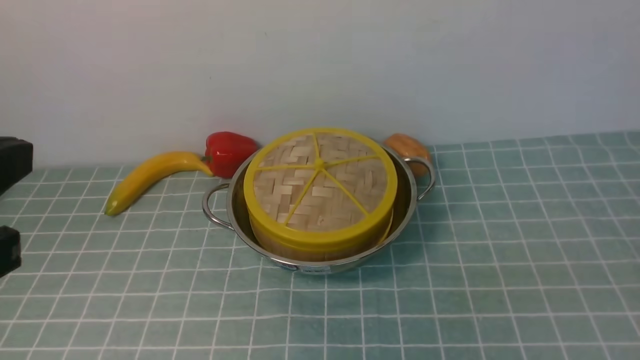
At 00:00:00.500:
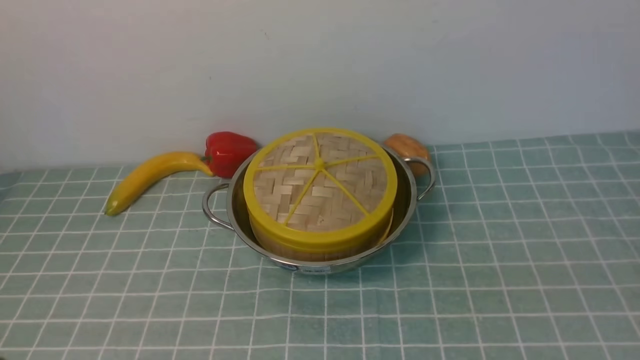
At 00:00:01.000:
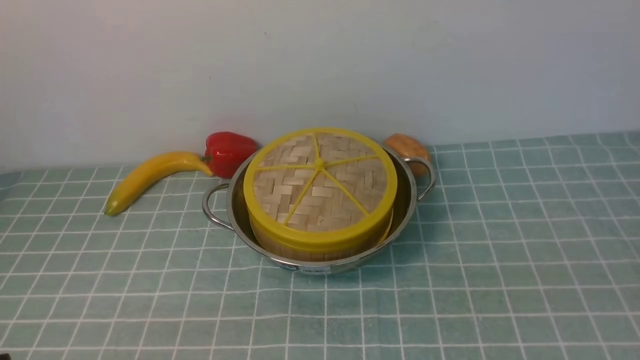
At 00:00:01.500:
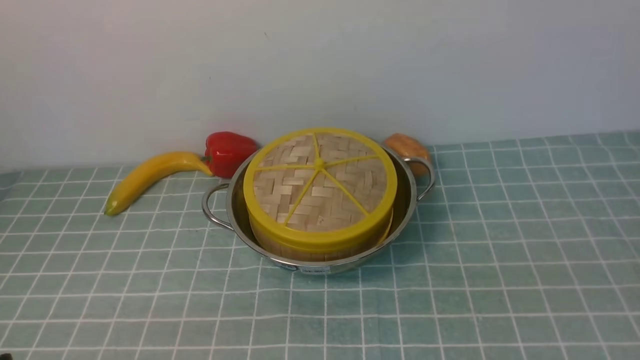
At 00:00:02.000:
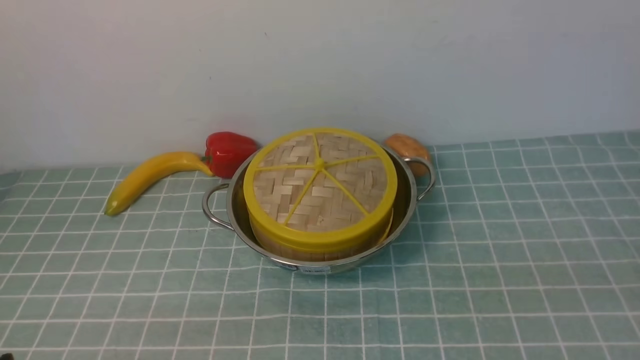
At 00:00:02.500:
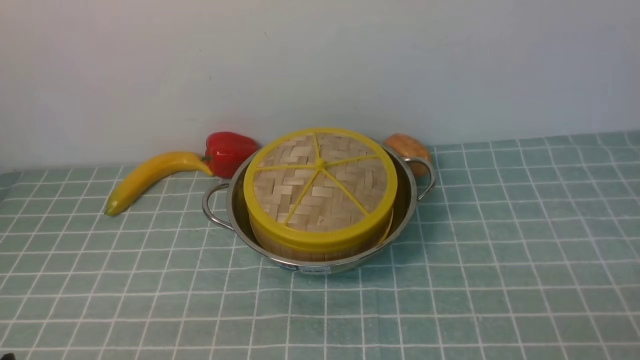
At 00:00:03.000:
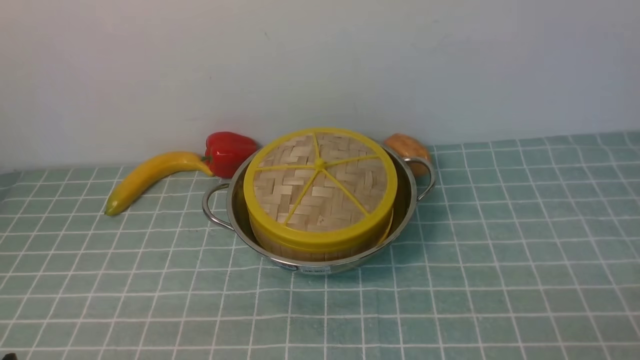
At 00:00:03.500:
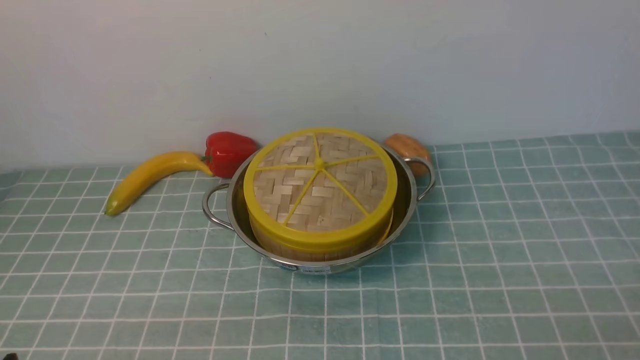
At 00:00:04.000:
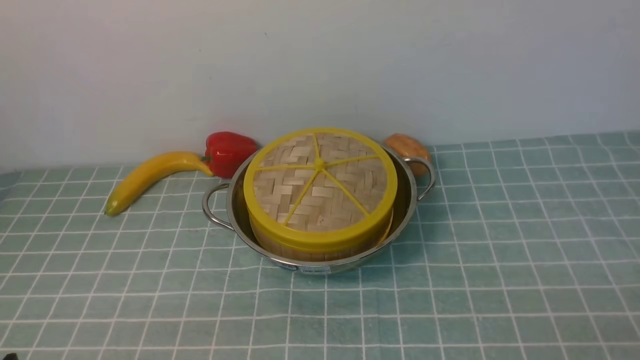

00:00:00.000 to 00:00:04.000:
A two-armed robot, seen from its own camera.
Task of the whole recording: place the steamer in the pot on the blue tablecloth, and put the lid on the steamer.
00:00:00.000 to 00:00:02.000: The left gripper travels downward by about 20 cm.
